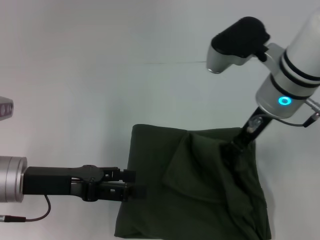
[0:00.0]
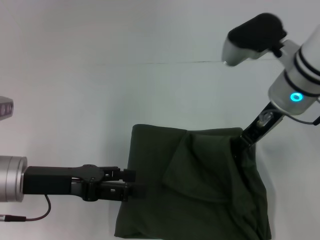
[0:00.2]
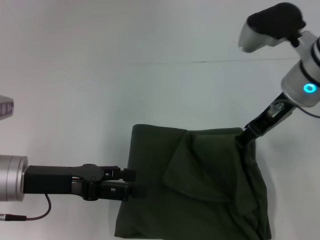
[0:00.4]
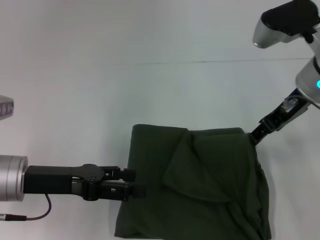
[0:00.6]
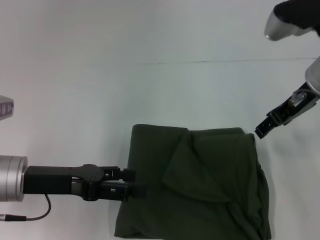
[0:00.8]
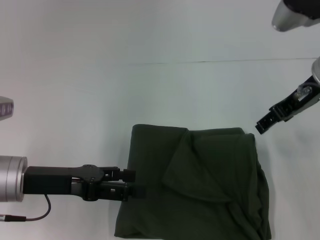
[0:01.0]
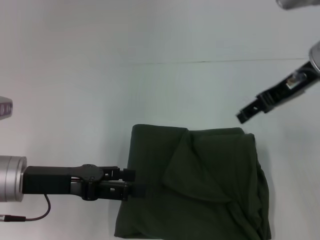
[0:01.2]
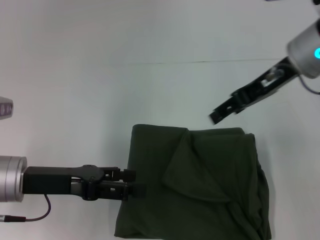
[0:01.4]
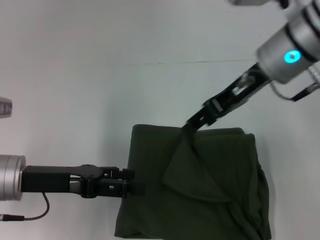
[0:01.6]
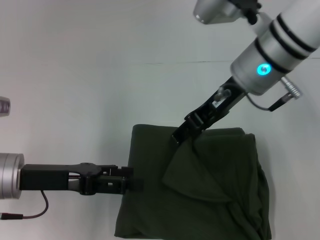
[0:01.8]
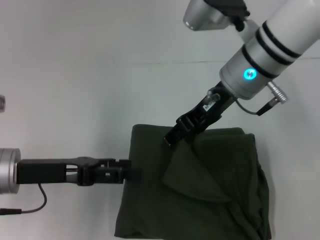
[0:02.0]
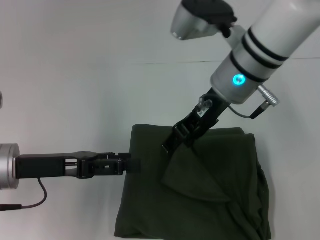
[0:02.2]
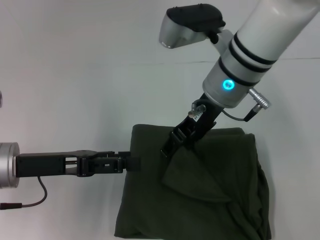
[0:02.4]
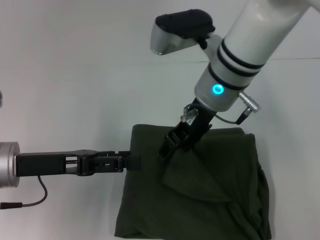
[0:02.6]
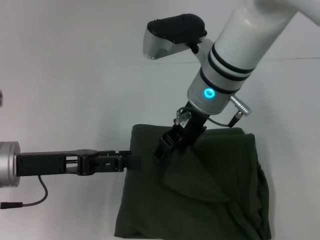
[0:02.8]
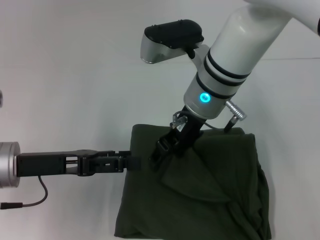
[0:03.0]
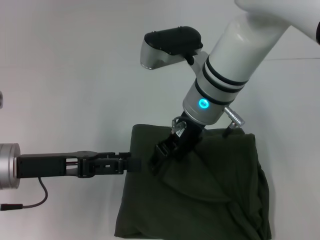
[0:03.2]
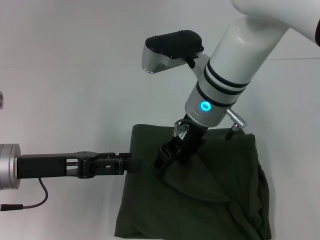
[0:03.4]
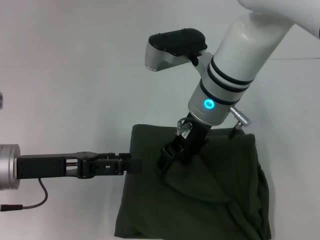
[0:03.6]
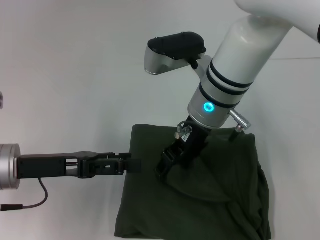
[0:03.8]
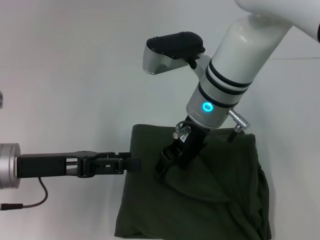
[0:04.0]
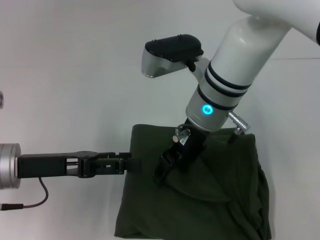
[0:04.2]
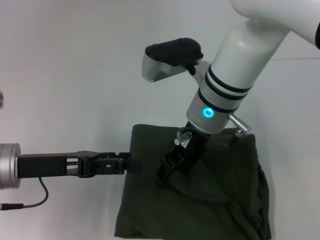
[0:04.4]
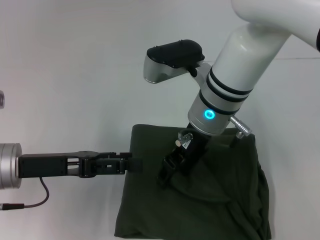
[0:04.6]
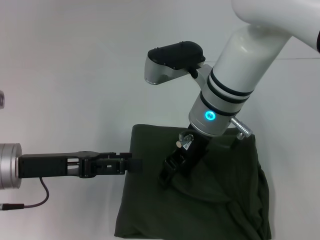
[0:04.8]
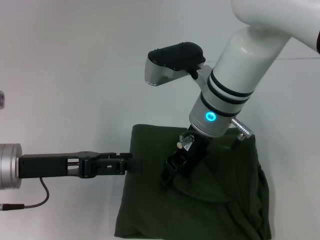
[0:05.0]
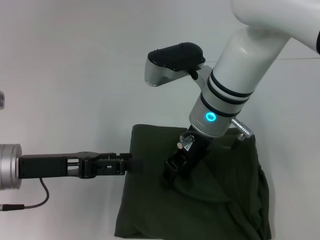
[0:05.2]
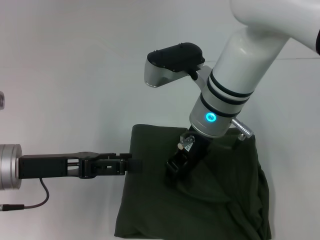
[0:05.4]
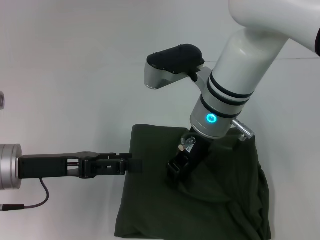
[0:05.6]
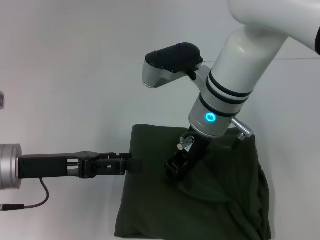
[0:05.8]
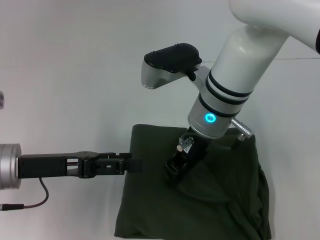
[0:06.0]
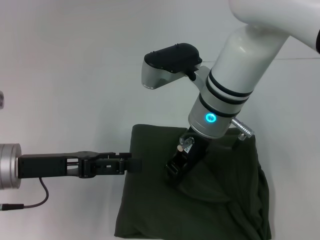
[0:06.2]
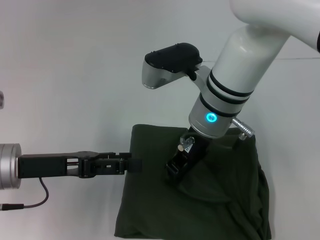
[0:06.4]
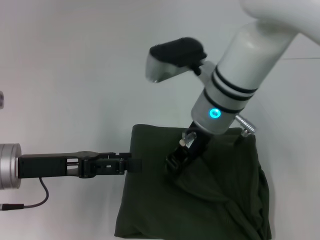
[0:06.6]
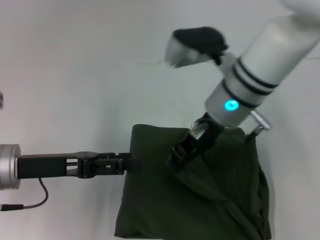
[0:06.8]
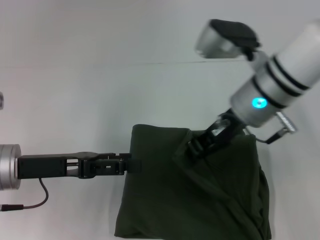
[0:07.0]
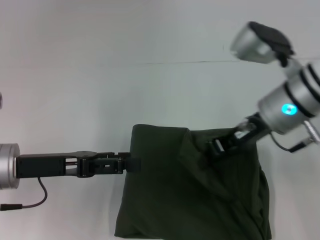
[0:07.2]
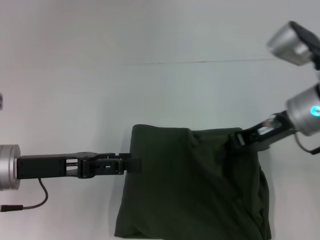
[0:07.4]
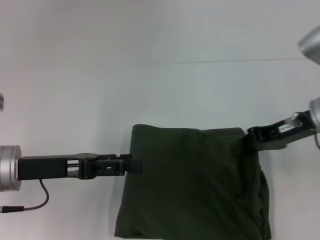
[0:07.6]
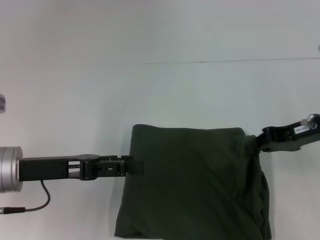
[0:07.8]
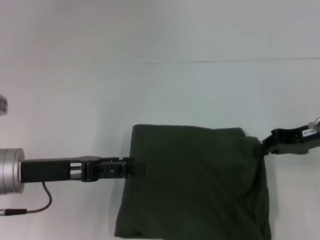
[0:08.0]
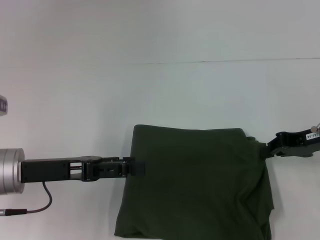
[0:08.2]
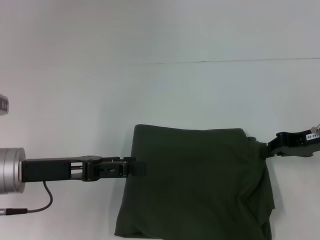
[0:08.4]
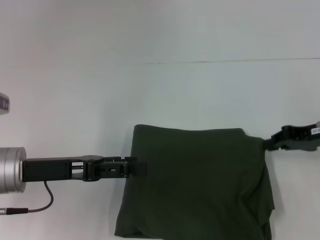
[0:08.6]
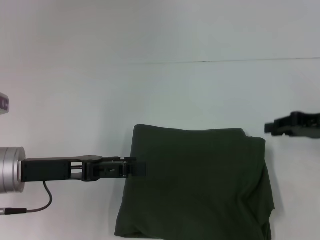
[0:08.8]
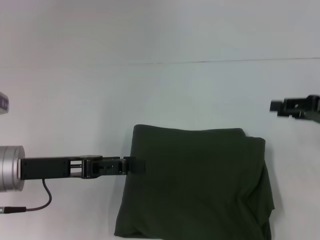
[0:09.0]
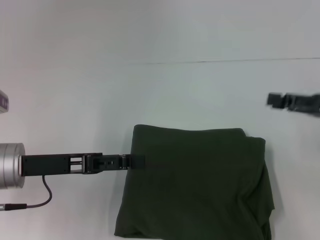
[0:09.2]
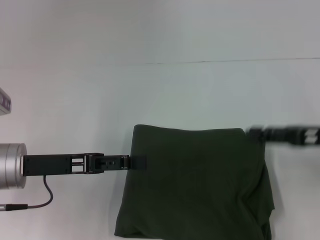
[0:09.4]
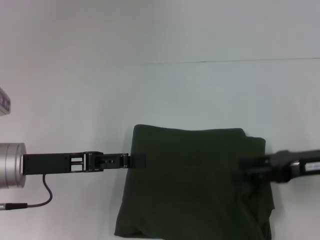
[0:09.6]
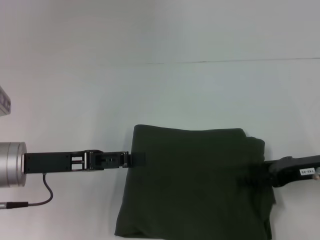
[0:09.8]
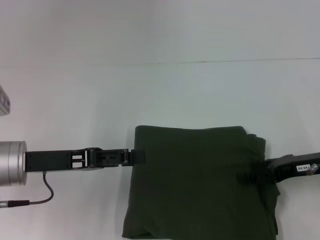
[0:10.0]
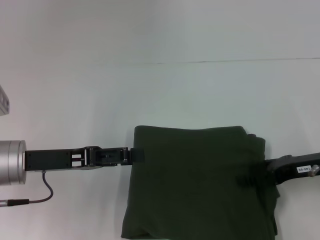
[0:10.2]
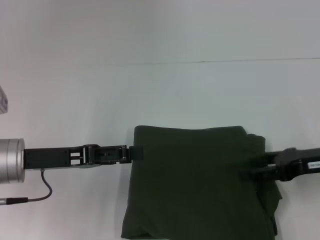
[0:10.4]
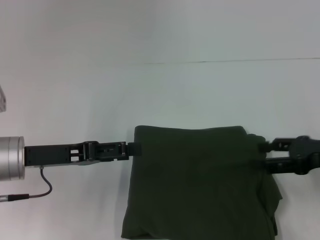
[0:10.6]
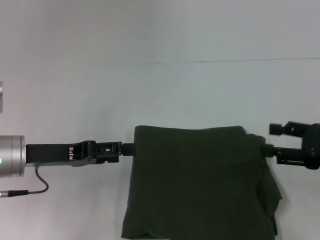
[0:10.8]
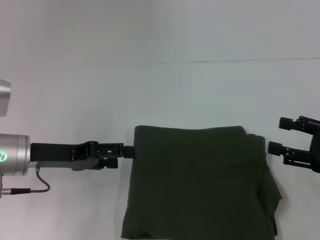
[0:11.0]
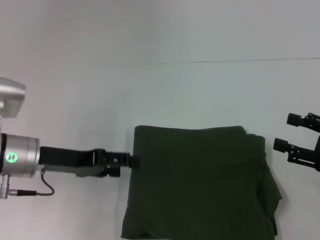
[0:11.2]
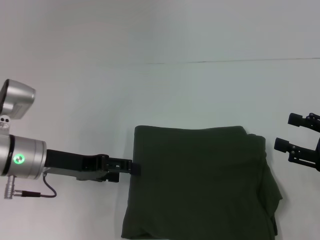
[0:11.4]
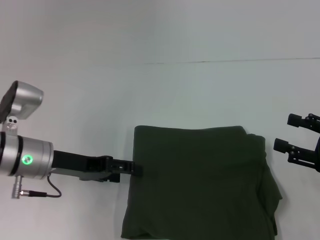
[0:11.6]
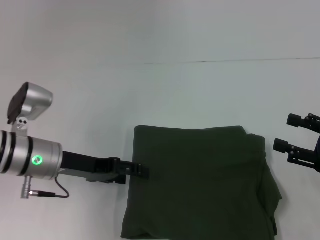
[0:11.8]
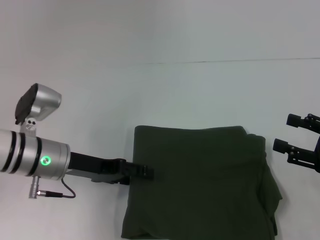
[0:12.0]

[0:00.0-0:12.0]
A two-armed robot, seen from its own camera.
0:01.6 to 0:03.0: The right gripper goes about 10 cm to the left and downward.
0:03.0 to 0:04.4: The grippers make only small movements.
0:04.4 to 0:06.0: The right gripper closes up.
0:06.0 to 0:07.6: The right gripper is displaced to the right by some 20 cm.
0:07.6 to 0:09.0: The right gripper travels to the right by roughly 10 cm.
0:09.0 to 0:10.4: The right gripper changes place by roughly 5 cm, and opens its fingers.
0:10.4 to 0:12.0: The right gripper travels backward by some 5 cm, while the left gripper shifts by about 5 cm.

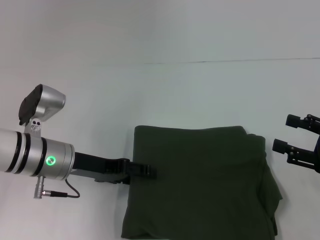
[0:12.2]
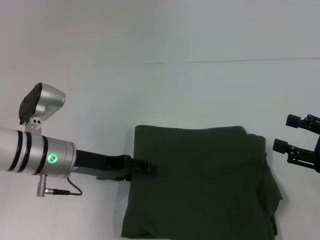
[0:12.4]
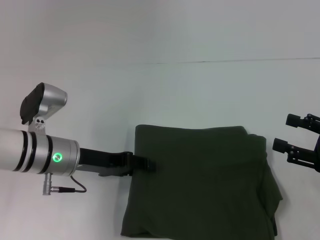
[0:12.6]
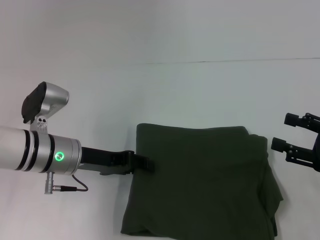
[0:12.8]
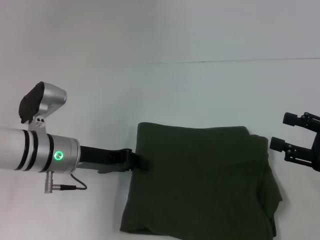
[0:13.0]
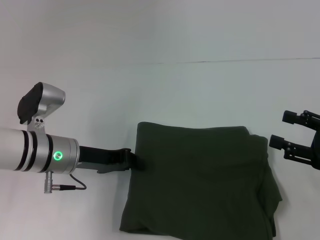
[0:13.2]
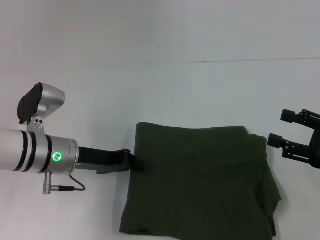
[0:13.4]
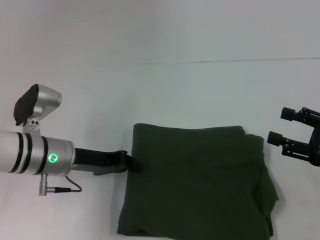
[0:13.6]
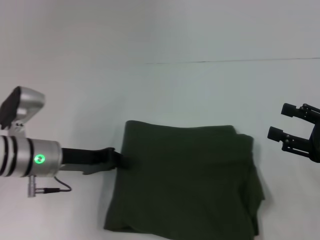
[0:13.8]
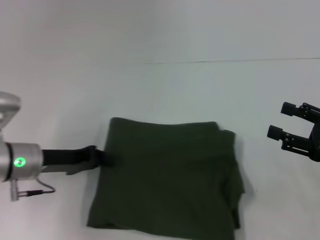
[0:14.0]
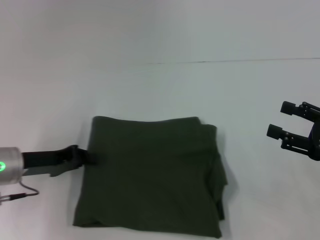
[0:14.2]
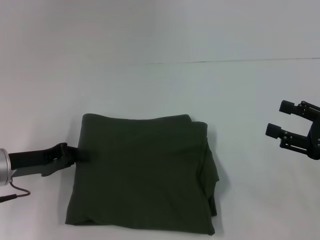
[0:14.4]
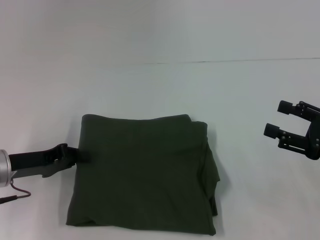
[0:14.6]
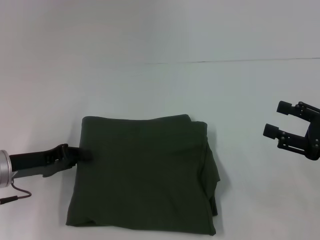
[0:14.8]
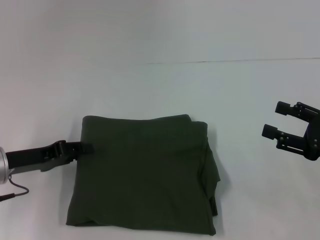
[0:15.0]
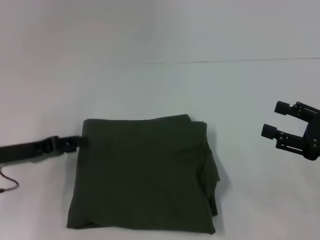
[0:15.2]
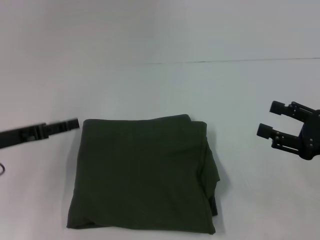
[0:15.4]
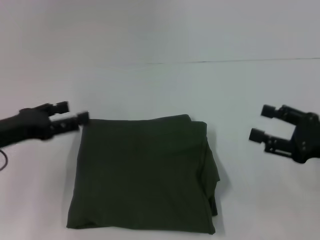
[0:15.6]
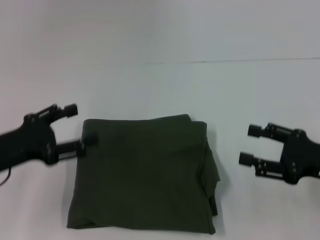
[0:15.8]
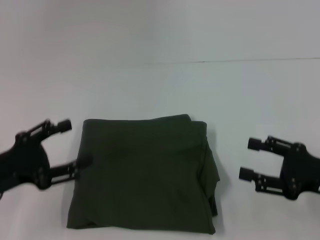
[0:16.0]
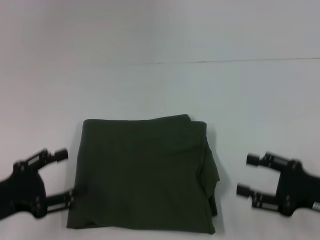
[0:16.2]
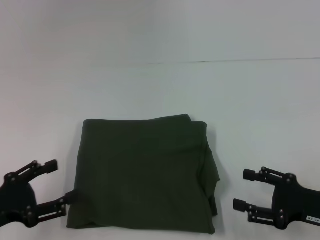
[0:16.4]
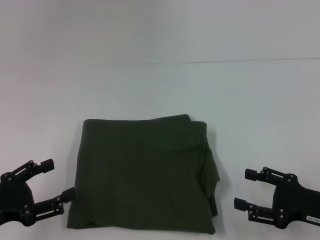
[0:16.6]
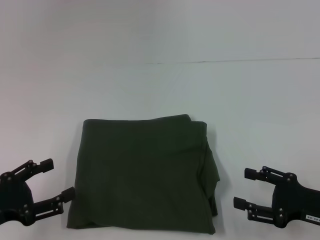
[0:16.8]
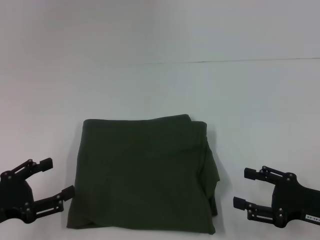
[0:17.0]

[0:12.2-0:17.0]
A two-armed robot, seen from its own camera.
0:12.2 to 0:13.8: The left gripper closes.
0:13.8 to 0:15.4: The left gripper goes some 10 cm to the left, and opens its fingers.
0:15.4 to 0:17.0: The right gripper is displaced downward by about 5 cm. Meanwhile the left gripper moves backward, some 10 cm, and opens its fingers.

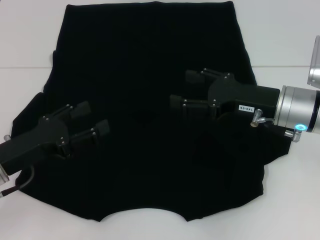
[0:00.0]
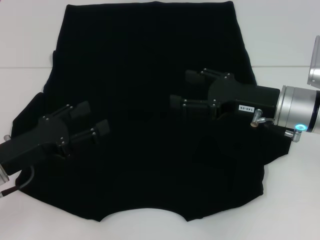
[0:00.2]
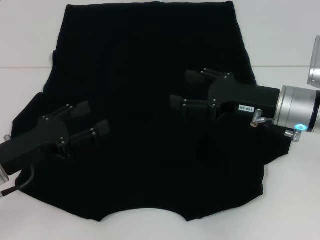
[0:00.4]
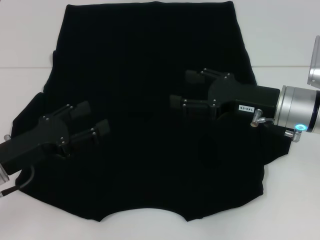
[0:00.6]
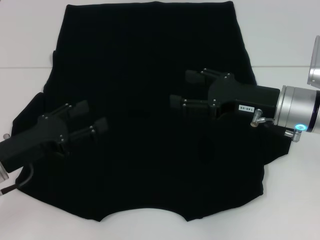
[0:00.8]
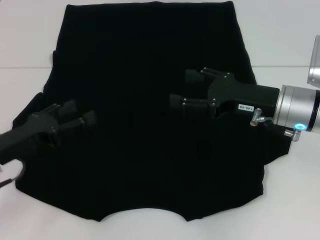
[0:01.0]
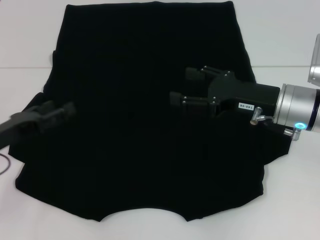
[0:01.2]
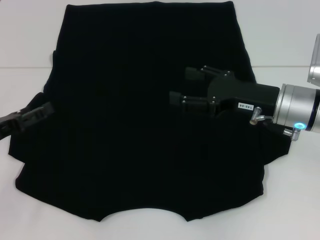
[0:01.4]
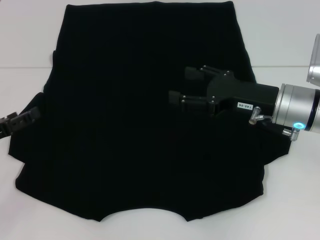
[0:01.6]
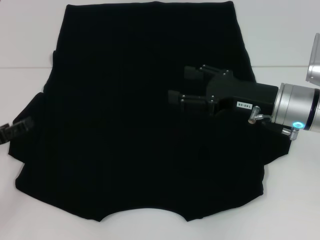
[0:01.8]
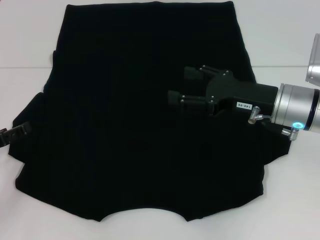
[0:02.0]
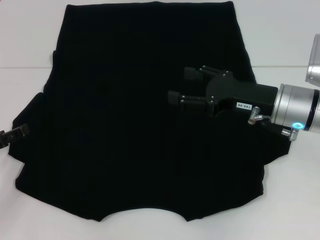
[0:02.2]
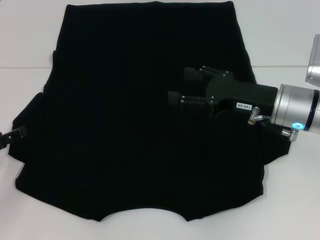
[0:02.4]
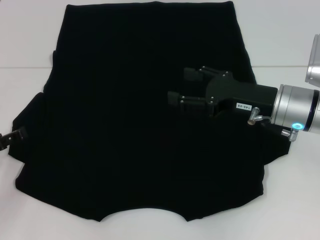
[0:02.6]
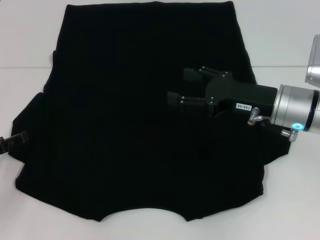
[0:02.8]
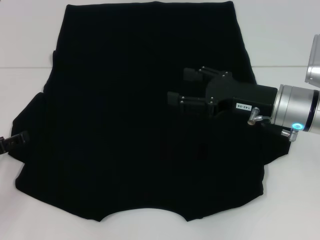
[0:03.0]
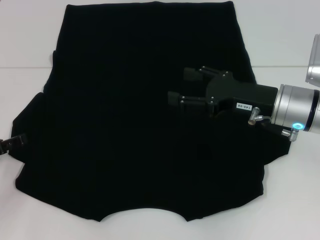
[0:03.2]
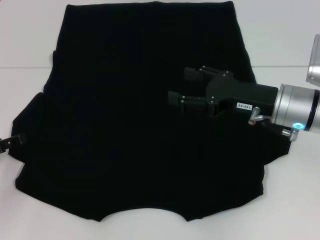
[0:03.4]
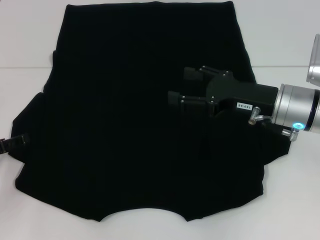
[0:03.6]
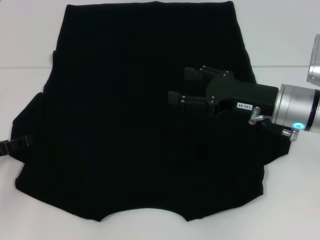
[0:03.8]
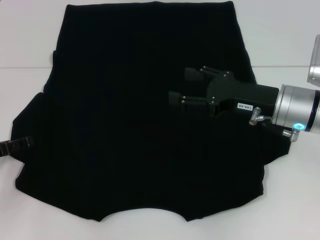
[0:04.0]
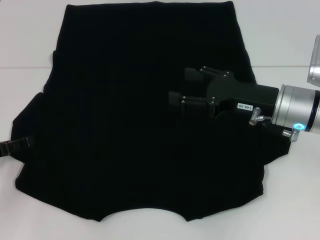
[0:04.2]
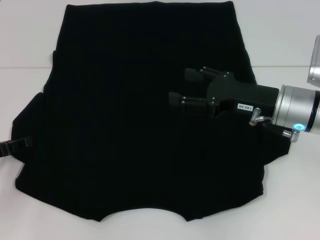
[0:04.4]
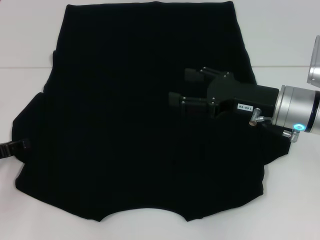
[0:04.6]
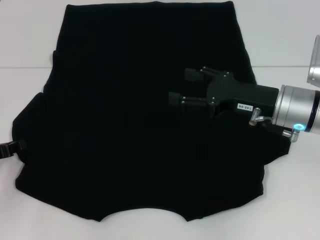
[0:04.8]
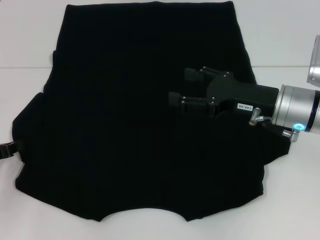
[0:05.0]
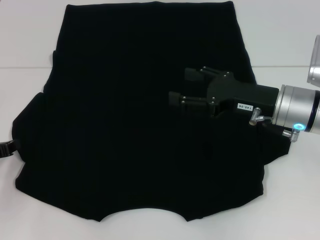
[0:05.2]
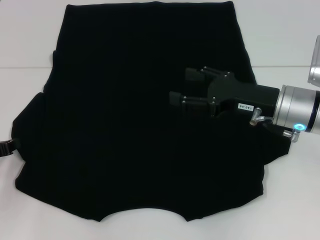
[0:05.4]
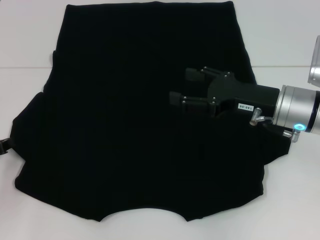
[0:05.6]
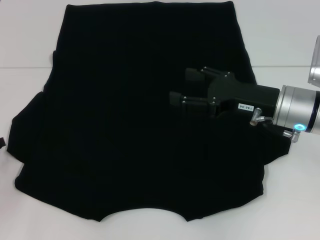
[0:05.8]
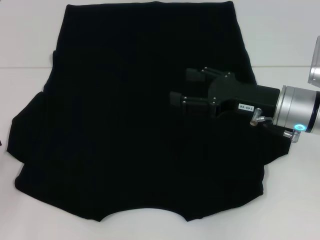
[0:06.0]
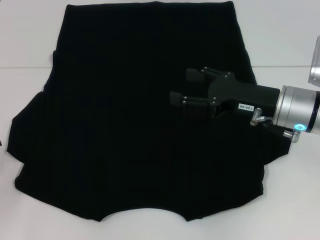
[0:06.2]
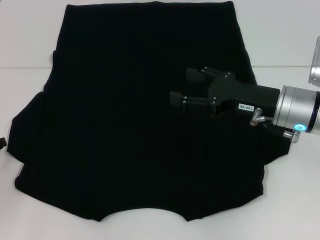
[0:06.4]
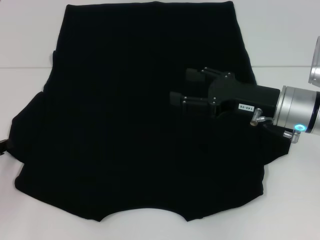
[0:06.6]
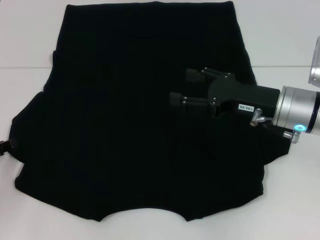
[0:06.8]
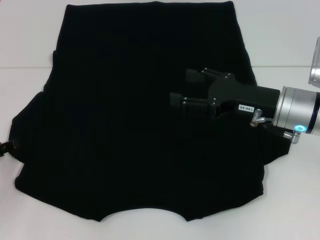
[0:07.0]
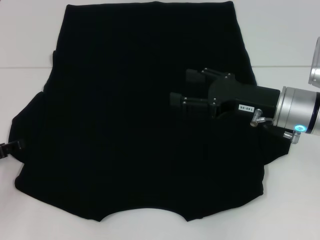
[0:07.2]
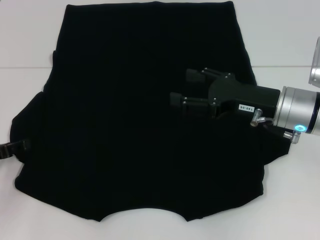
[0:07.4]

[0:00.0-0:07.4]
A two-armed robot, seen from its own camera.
0:00.0 to 0:01.4: The left gripper travels to the left by some 5 cm.
0:01.4 to 0:03.0: The grippers stay close to where they were, moving slightly.
0:03.0 to 0:04.4: The grippers move only a little.
